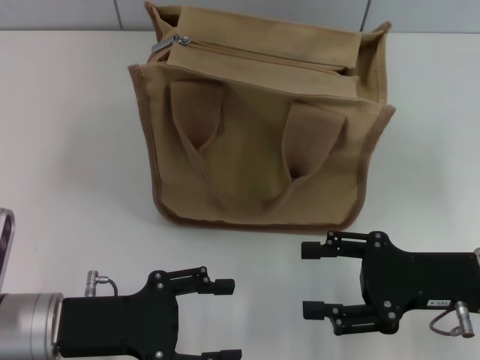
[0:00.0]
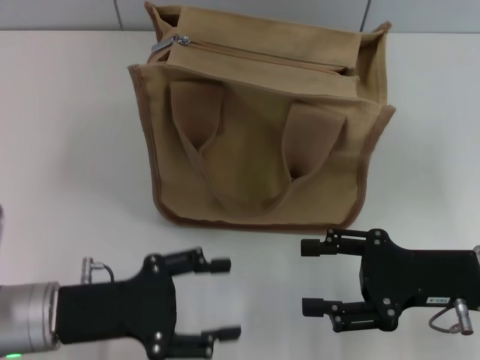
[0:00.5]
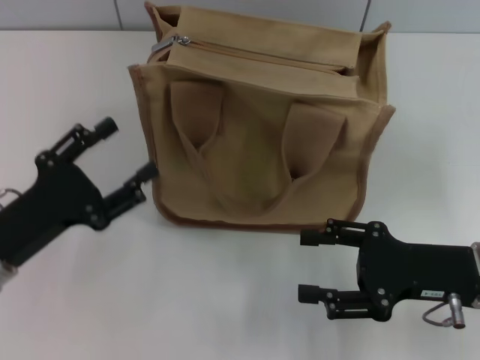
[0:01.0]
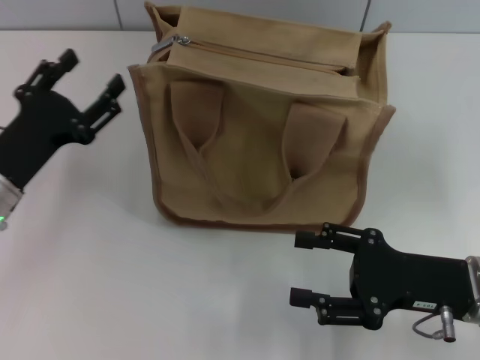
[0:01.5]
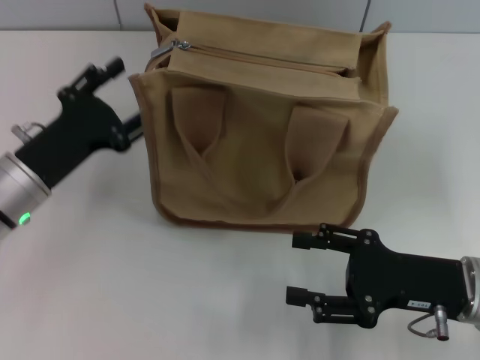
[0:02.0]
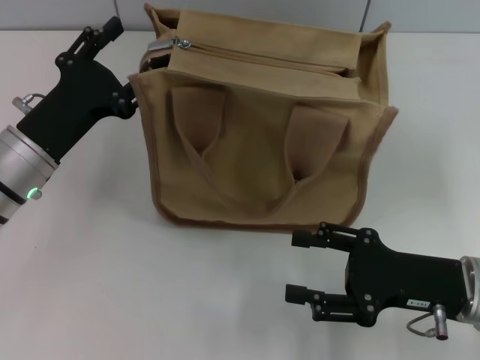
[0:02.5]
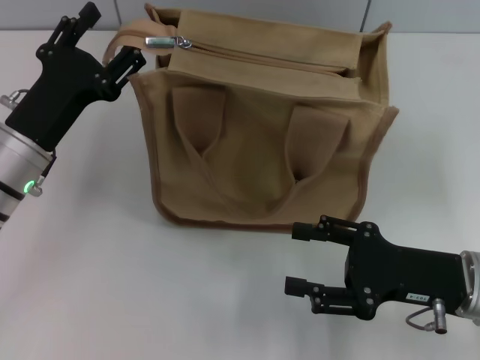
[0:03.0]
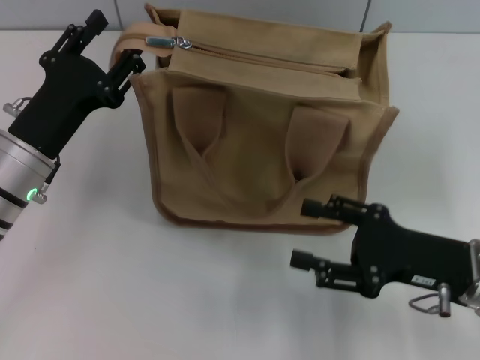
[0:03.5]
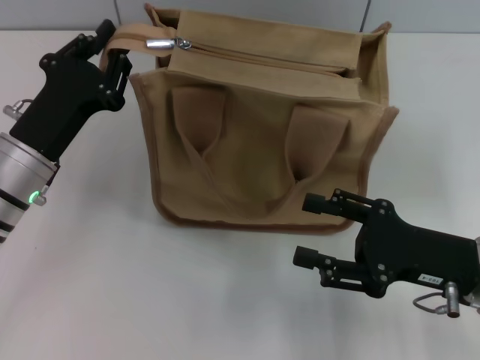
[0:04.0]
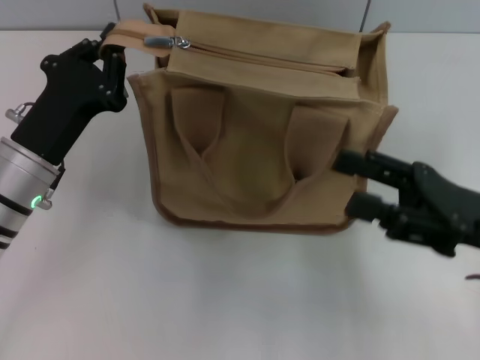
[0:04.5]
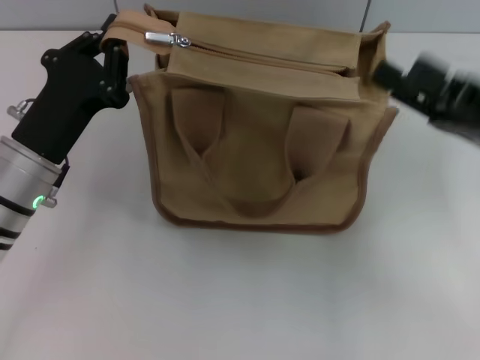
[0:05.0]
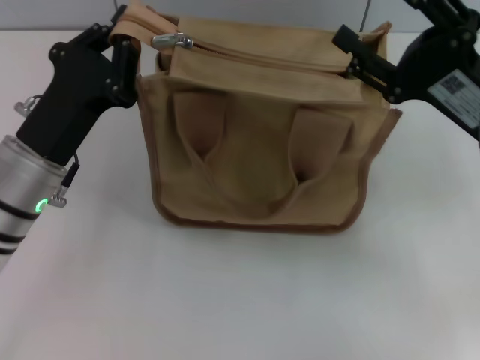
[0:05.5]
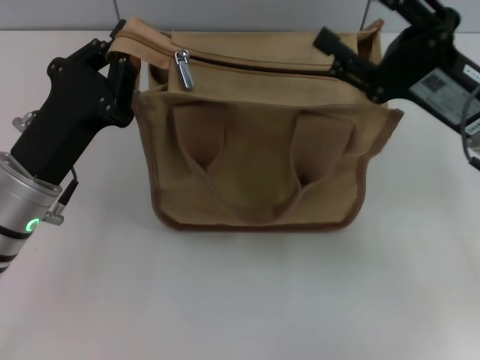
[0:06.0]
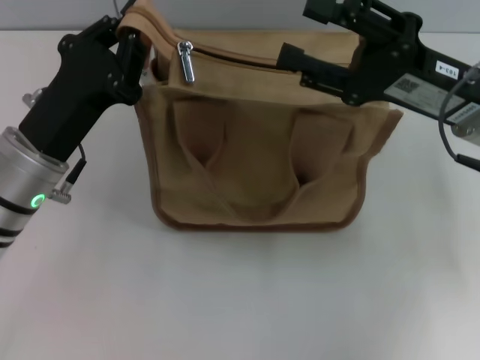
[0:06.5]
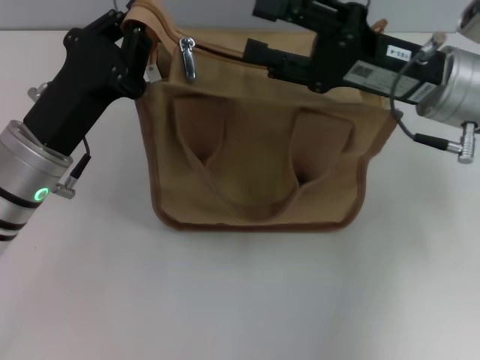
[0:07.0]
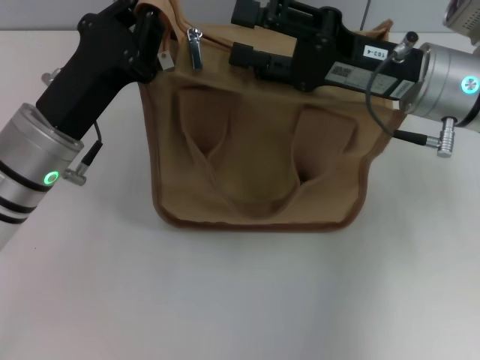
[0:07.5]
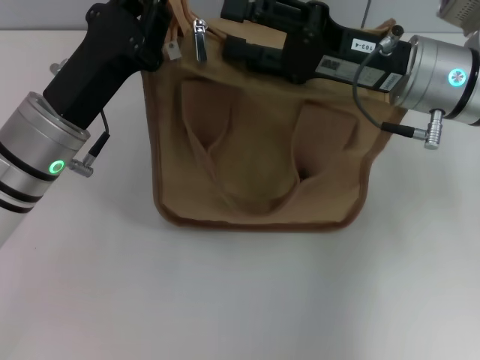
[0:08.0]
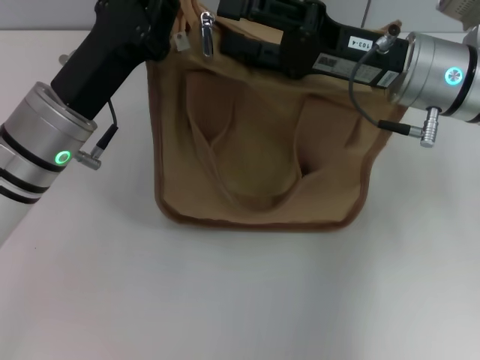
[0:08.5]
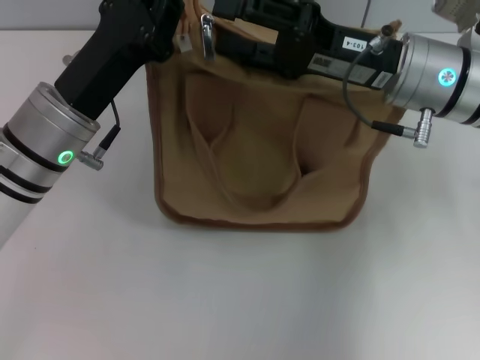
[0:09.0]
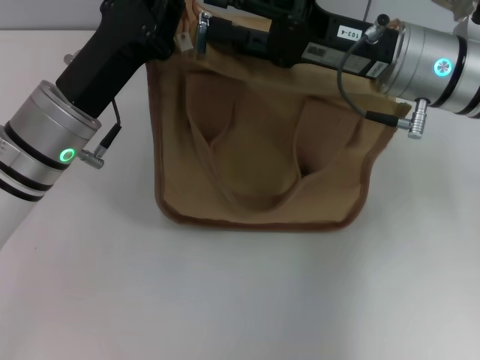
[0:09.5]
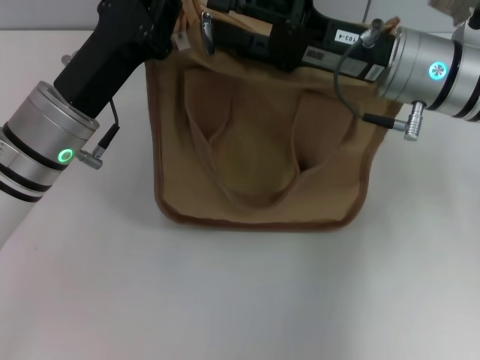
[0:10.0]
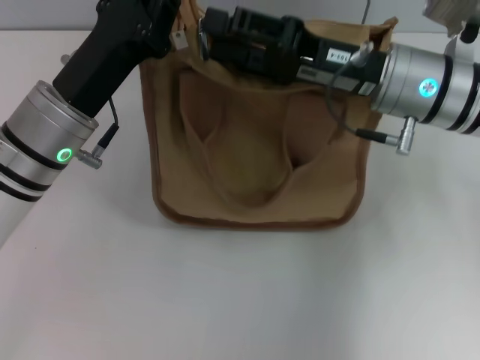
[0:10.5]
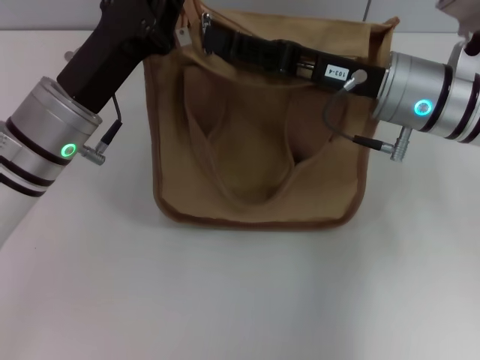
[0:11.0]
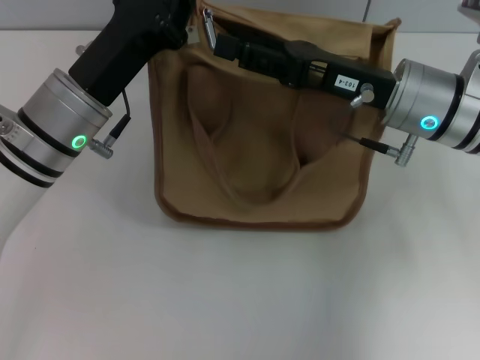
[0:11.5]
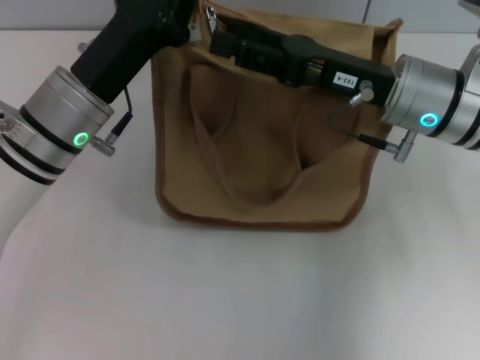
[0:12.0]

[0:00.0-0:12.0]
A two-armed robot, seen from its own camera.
0:00.0 to 0:02.0: The left gripper travels forward by about 10 cm.
0:02.0 to 0:04.0: The left gripper closes up.
0:04.0 to 0:06.0: The right gripper goes approximately 10 cm forward and upward; the left gripper closes its fingers.
0:06.0 to 0:08.0: The left gripper ends up about 5 cm from where it was, while the right gripper is displaced to the left by roughly 5 cm.
0:08.0 to 0:10.0: Both grippers stay about where they are.

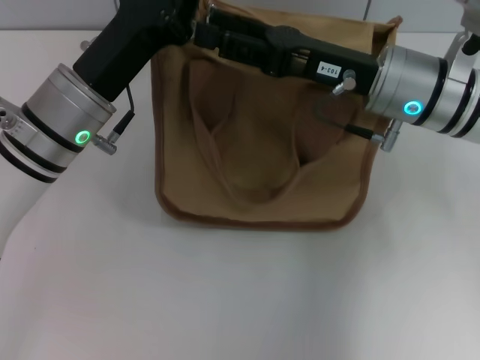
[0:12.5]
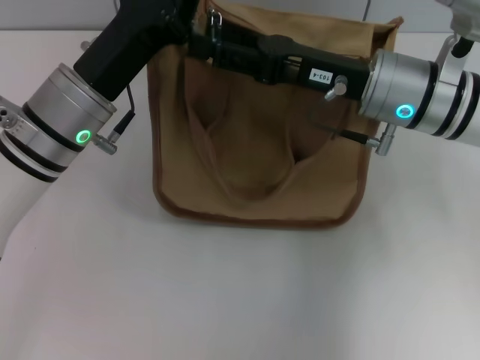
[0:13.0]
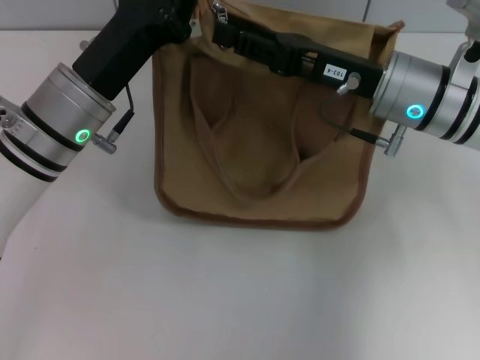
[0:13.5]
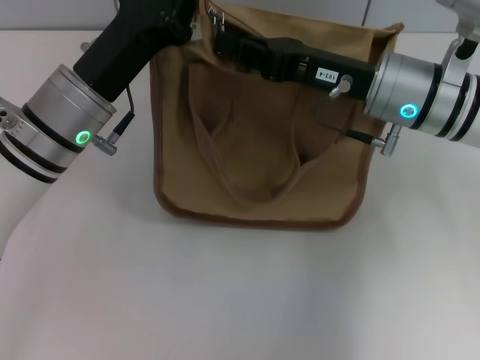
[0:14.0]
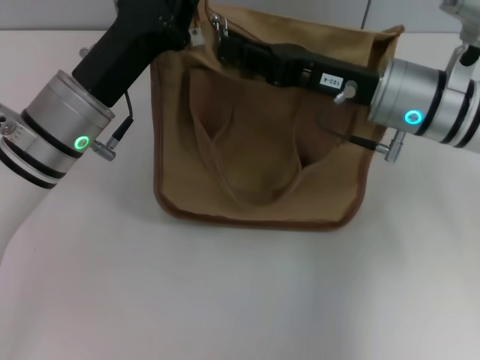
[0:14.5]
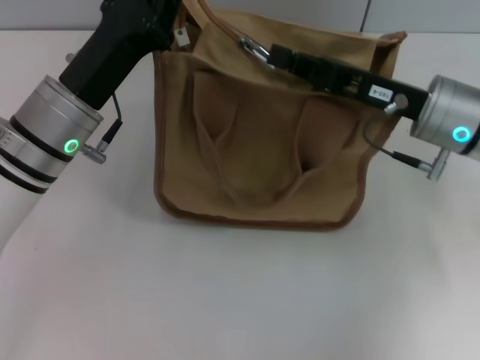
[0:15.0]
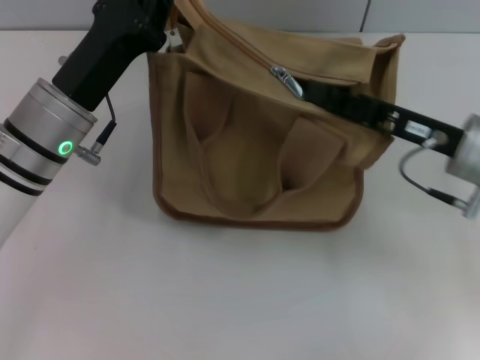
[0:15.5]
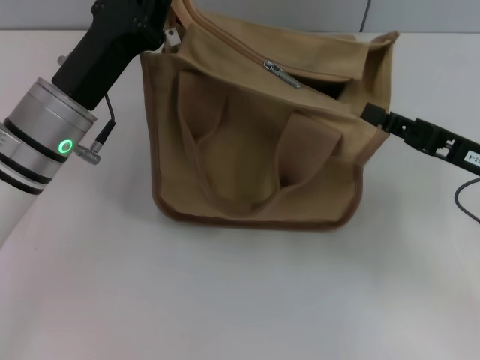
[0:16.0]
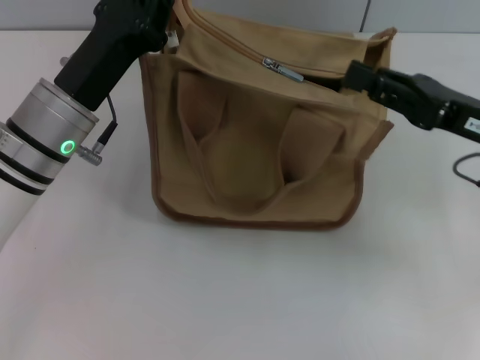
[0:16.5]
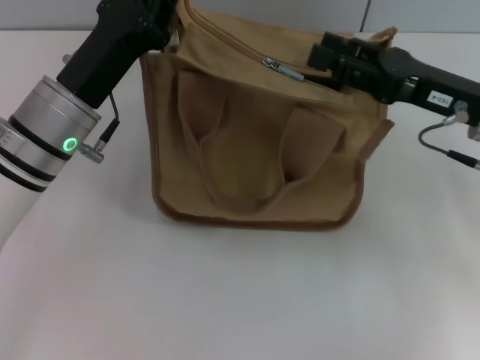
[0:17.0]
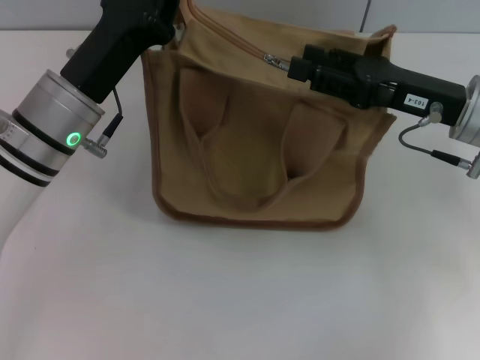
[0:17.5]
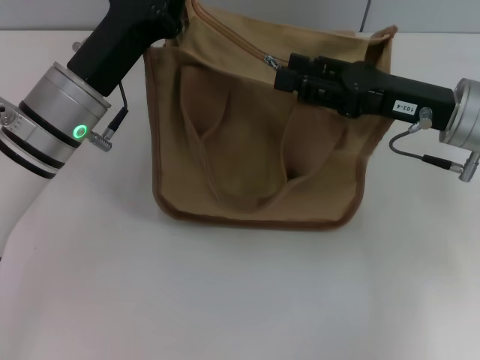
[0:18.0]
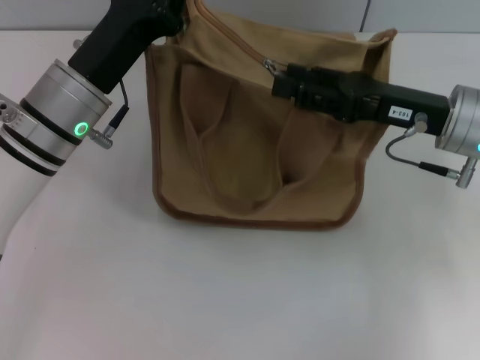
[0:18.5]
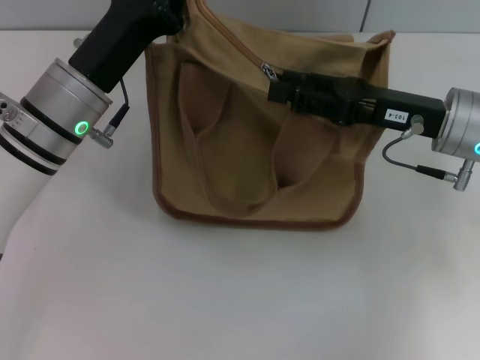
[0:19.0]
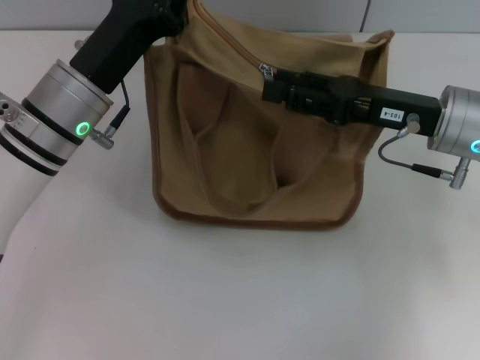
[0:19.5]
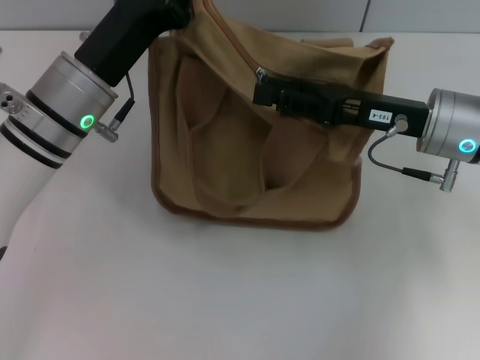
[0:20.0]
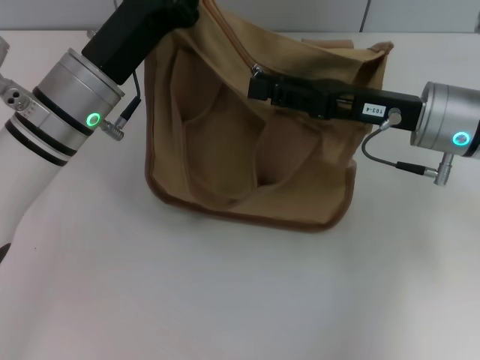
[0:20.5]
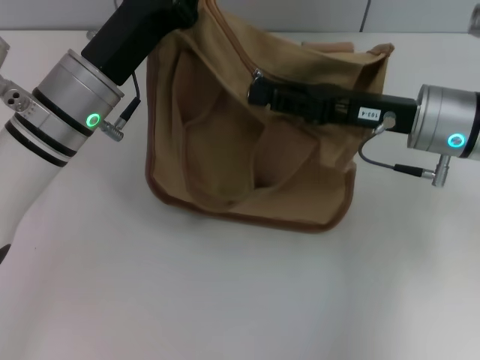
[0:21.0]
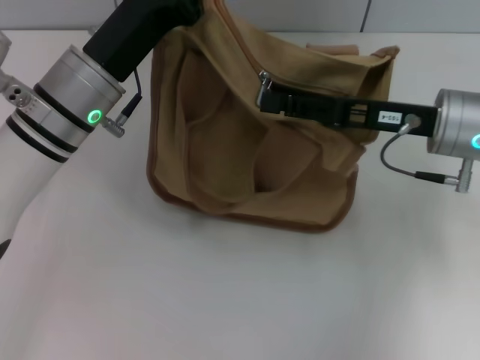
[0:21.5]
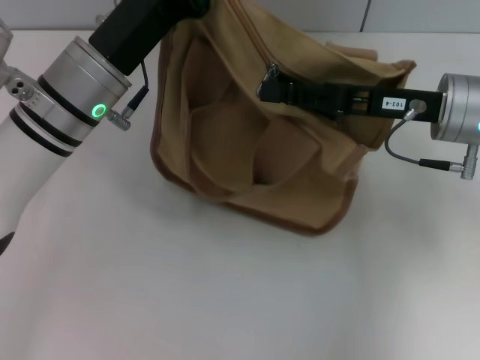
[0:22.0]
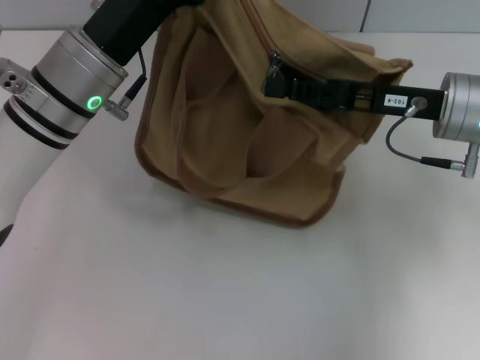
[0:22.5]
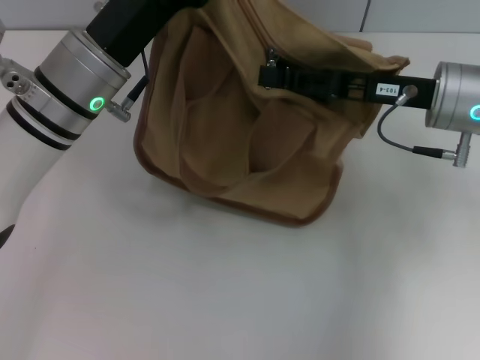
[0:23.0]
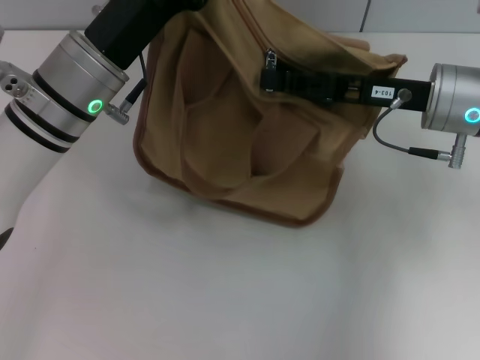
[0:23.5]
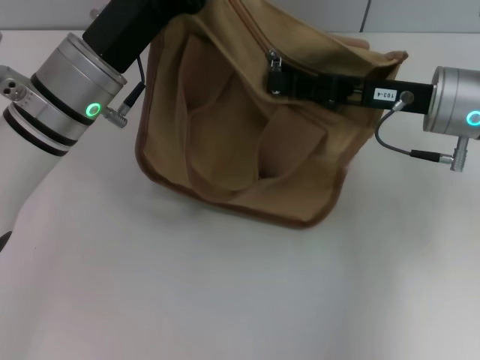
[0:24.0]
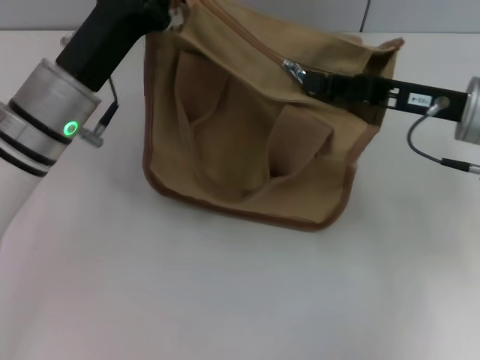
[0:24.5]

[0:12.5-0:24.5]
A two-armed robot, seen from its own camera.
0:12.5 to 0:14.5: The right gripper closes.
0:14.5 to 0:16.5: The right gripper is displaced to the right and backward by approximately 10 cm.
0:16.5 to 0:18.5: The right gripper changes place by roughly 5 cm, and opens its fingers.
0:18.5 to 0:22.5: The grippers make only small movements.
0:22.5 to 0:24.5: The right gripper closes.

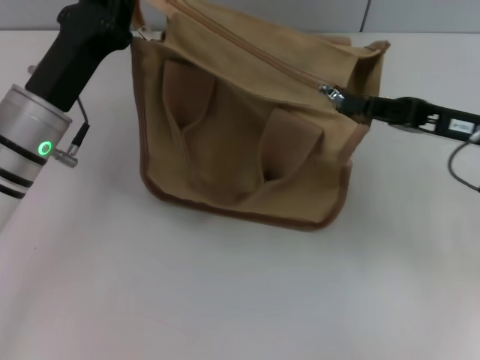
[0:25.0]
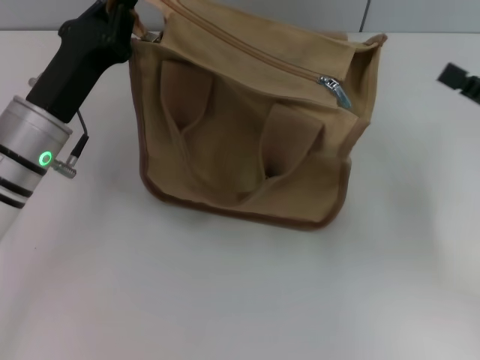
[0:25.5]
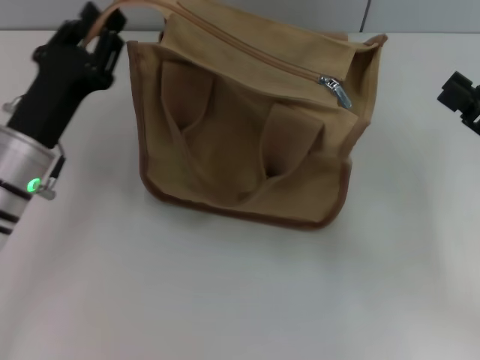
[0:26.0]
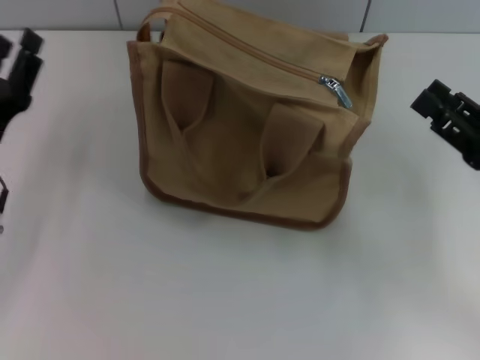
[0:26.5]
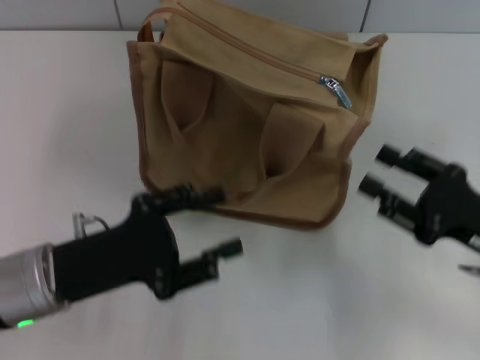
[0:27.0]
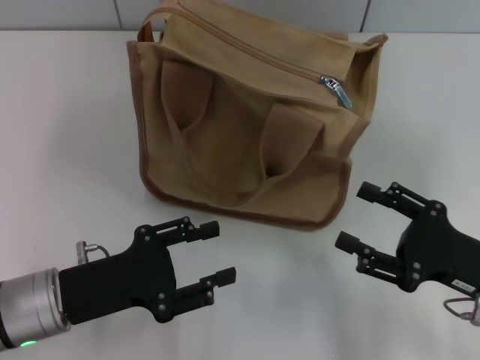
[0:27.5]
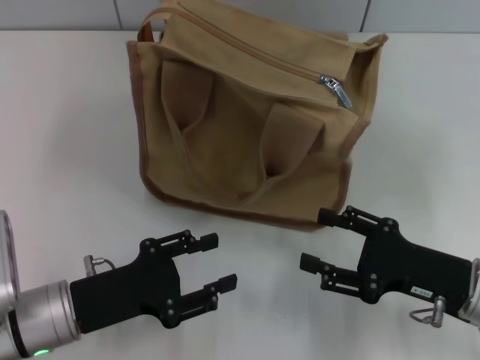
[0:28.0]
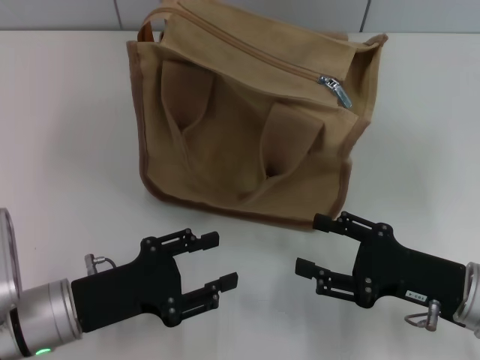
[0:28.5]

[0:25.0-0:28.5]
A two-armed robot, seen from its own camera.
Step, 0:25.5 to 0:26.0: Grab the zipper with your left hand.
0:25.0 to 0:27.0: The left gripper moves backward, roughly 10 cm, and opens, while the right gripper is displaced backward and downward by about 10 cm, and opens up.
0:27.0 to 0:28.5: The right gripper ends up approximately 5 cm from where it was.
